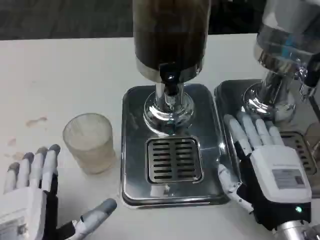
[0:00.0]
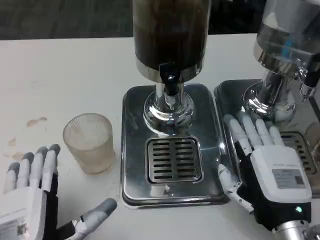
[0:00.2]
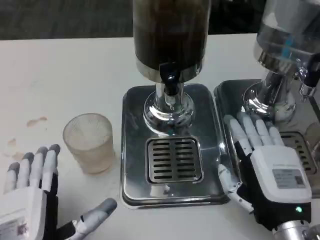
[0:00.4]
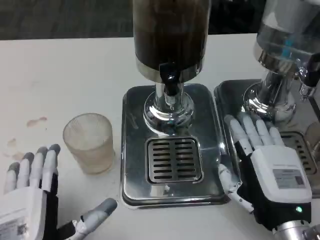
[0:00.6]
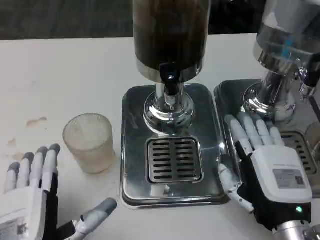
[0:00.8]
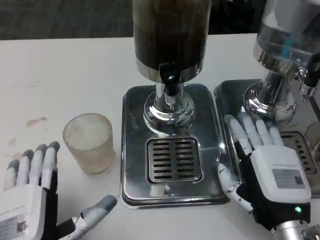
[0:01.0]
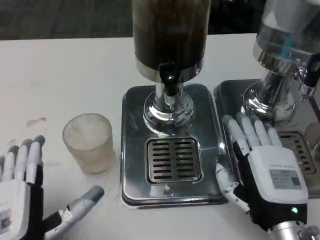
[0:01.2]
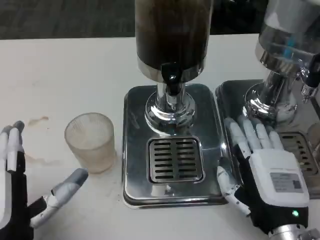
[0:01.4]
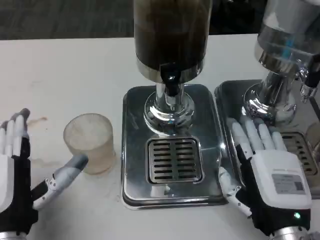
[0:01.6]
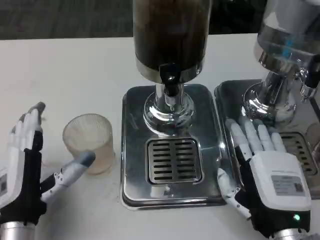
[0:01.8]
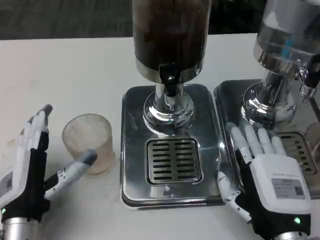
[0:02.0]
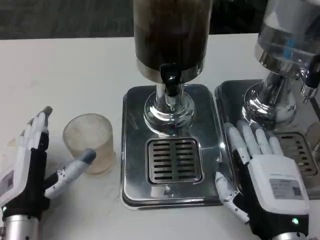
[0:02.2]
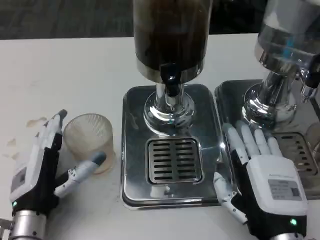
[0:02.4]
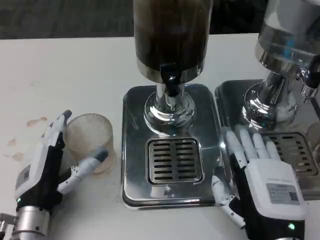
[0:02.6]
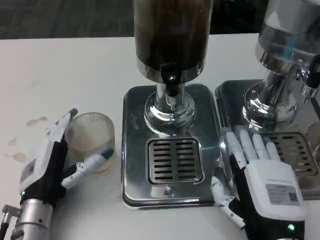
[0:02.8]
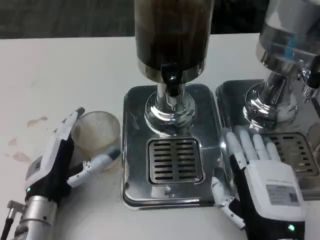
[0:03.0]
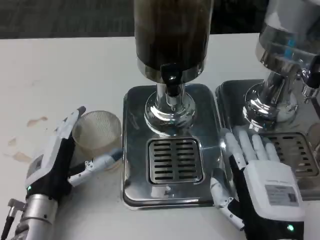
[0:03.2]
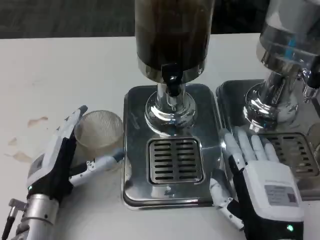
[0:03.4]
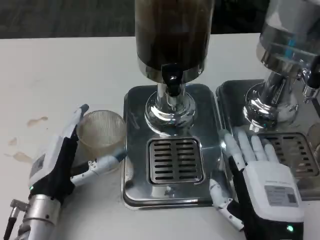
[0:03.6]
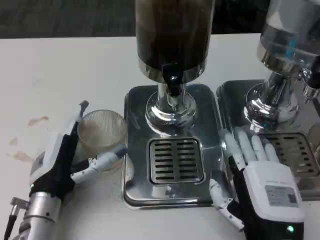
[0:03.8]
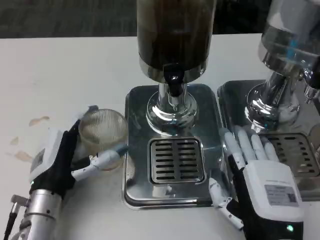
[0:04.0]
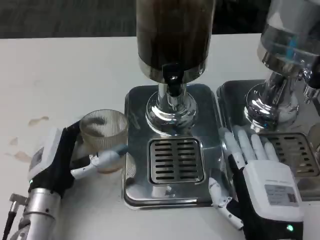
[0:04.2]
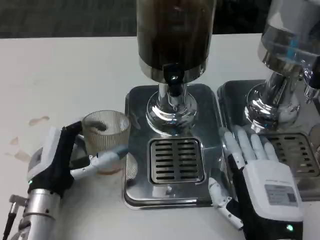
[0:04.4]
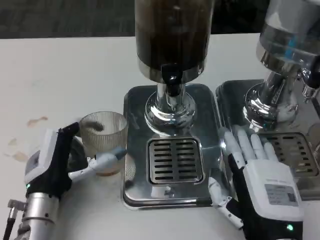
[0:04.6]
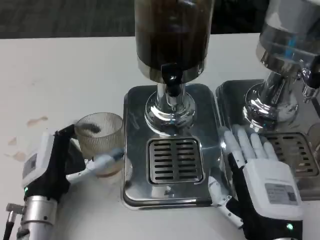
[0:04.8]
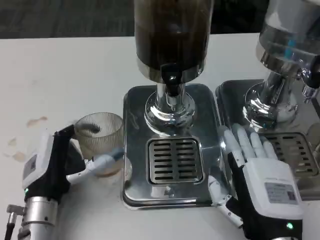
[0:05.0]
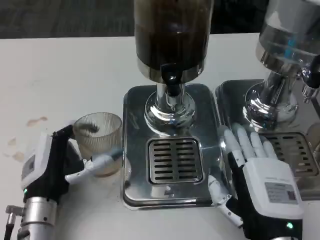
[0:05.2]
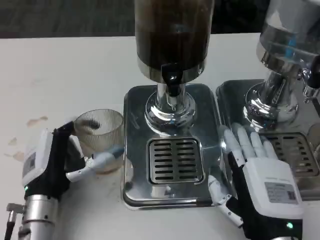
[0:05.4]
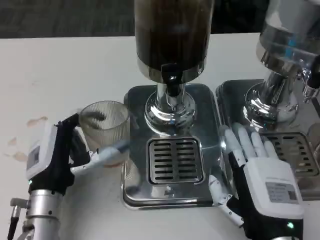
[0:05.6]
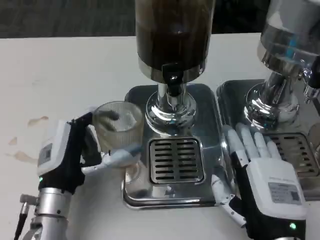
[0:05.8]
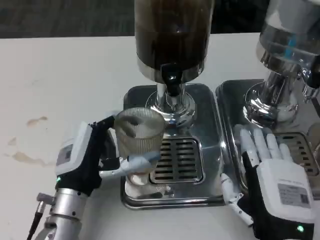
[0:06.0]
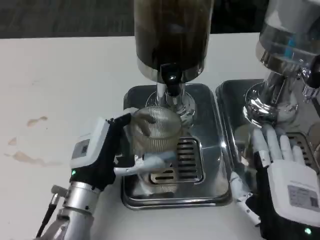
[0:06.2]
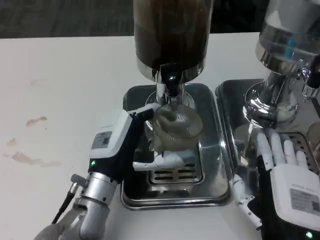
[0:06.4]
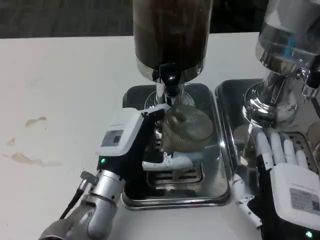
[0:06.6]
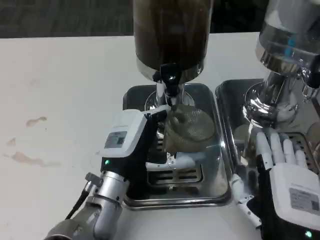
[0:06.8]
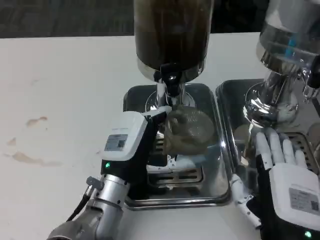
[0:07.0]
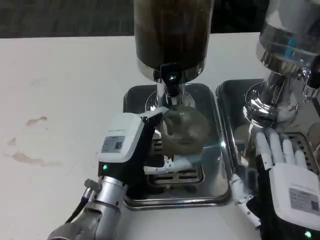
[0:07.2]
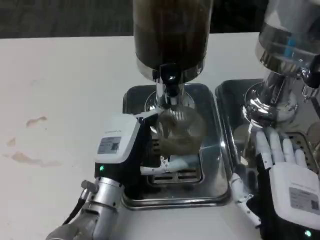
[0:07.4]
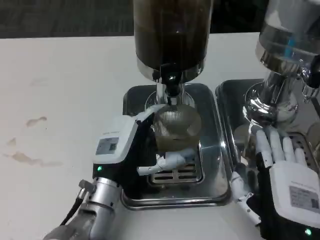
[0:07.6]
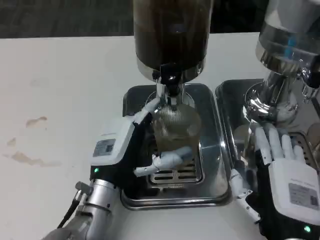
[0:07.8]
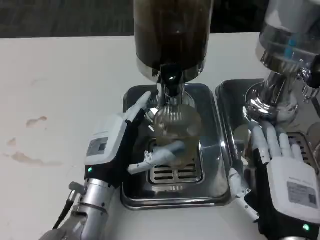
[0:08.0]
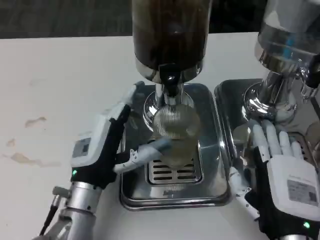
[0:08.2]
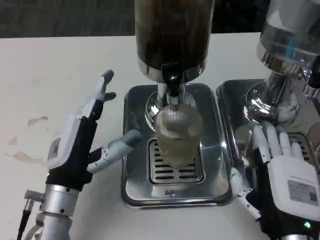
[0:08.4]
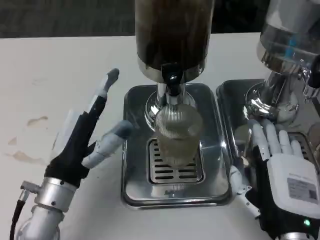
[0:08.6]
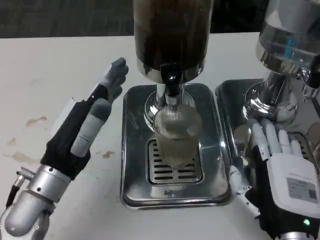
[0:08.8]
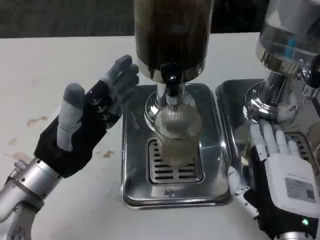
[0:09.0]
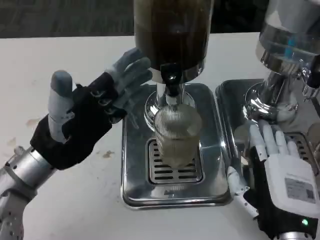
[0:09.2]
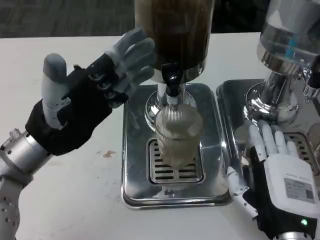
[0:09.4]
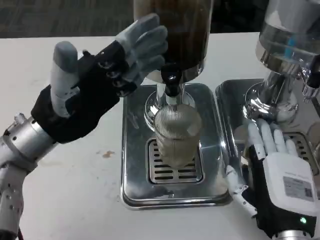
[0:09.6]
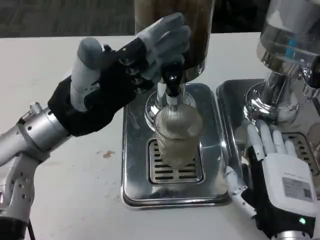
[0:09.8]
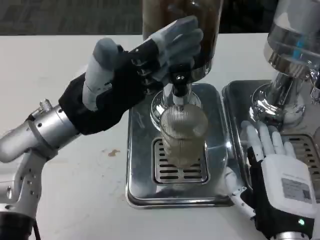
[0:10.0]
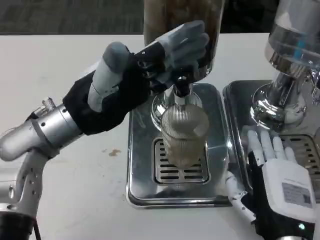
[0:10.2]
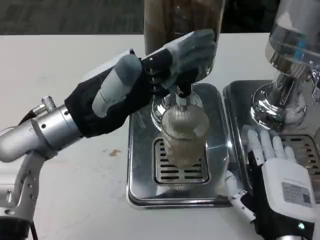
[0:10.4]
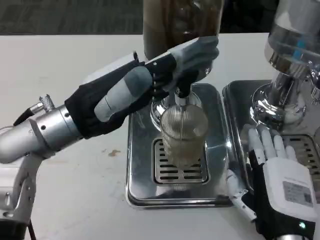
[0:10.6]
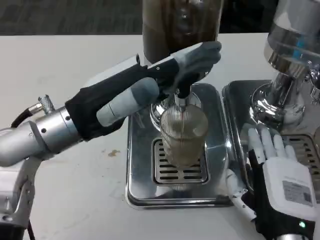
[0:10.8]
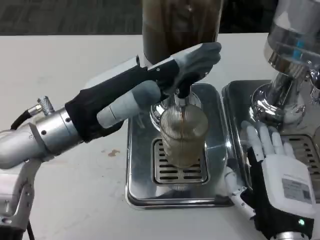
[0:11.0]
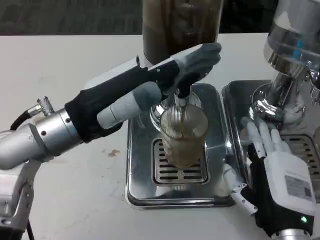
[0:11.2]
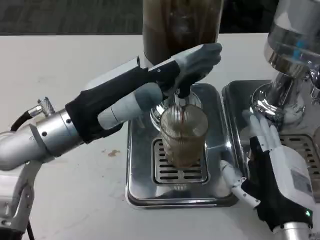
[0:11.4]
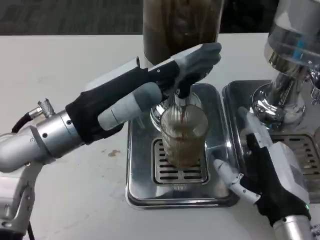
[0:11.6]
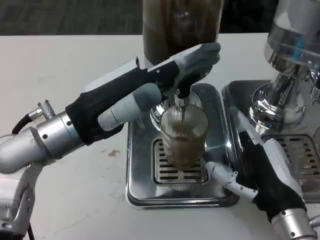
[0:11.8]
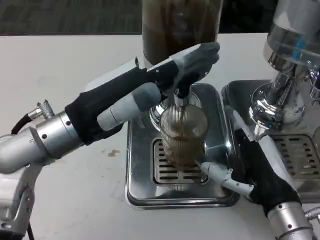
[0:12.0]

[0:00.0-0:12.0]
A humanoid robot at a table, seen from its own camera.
Task of the whole recording: Grasp the cup under the faucet to collect the drink, then remove the cup.
0:00.0 to 0:01.6: The left hand travels forward by about 5 cm.
0:01.6 to 0:03.0: The left hand is displaced forward by about 5 cm.
0:03.0 to 0:04.4: The hands make only small movements.
0:07.6 to 0:09.0: The left hand moves to the left and upward, about 10 cm.
0:09.0 to 0:10.4: The left hand travels upward by roughly 10 cm.
0:10.4 to 0:12.0: The right hand moves roughly 5 cm.

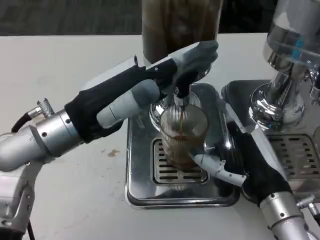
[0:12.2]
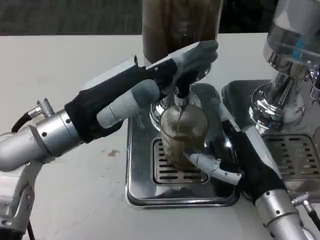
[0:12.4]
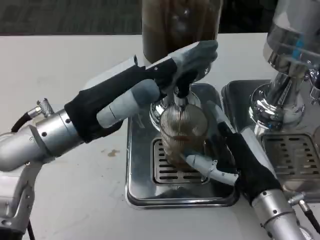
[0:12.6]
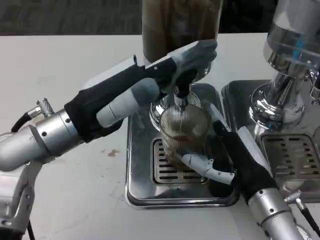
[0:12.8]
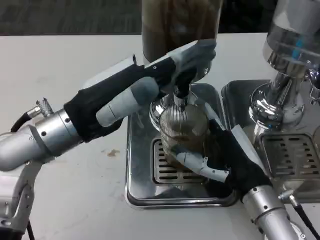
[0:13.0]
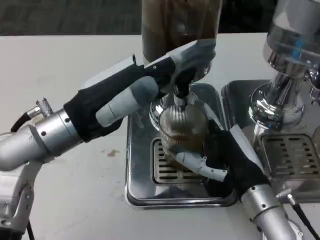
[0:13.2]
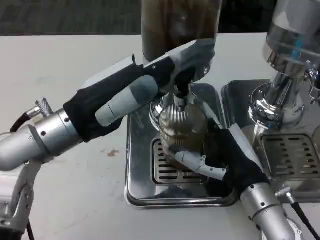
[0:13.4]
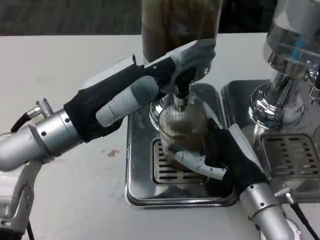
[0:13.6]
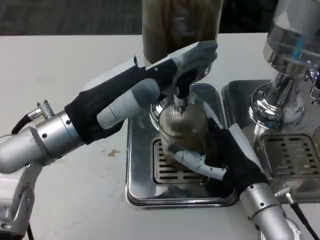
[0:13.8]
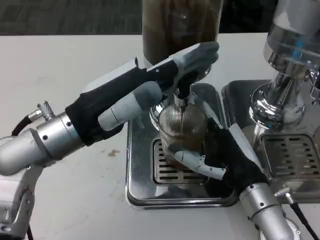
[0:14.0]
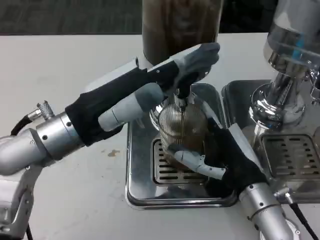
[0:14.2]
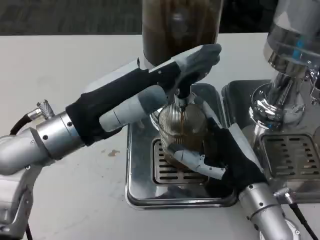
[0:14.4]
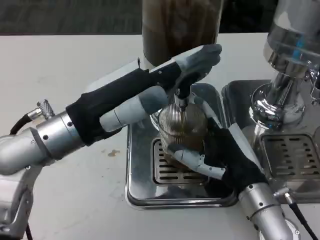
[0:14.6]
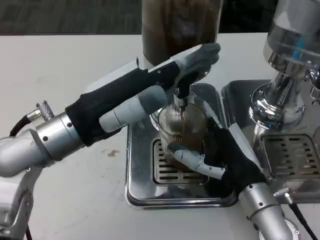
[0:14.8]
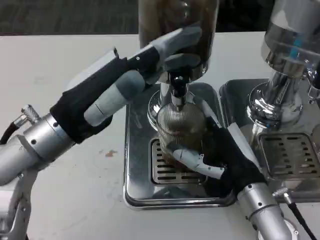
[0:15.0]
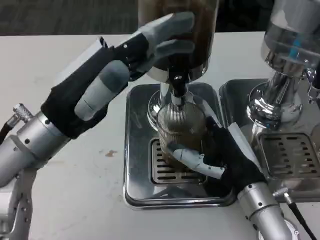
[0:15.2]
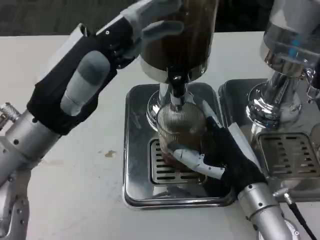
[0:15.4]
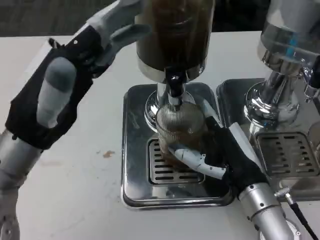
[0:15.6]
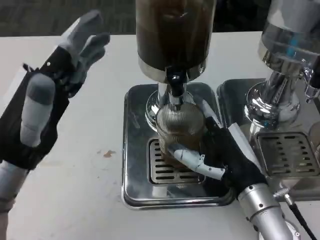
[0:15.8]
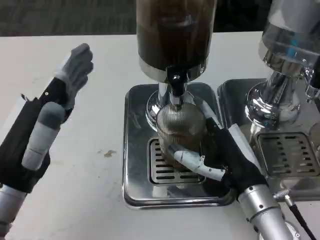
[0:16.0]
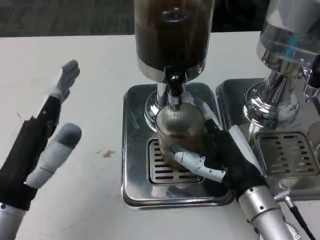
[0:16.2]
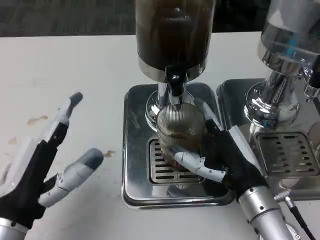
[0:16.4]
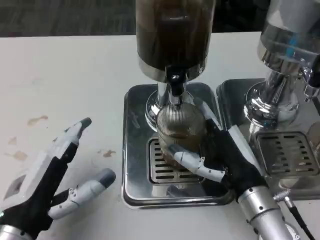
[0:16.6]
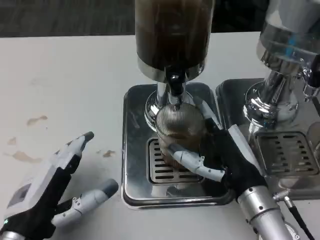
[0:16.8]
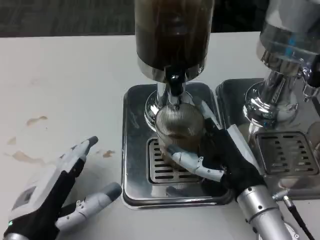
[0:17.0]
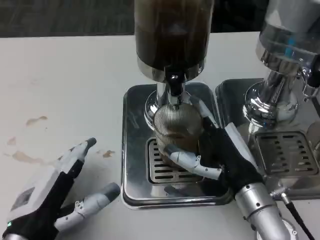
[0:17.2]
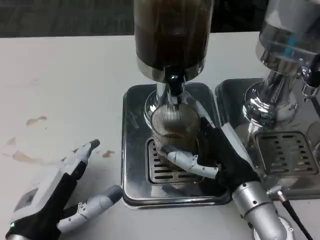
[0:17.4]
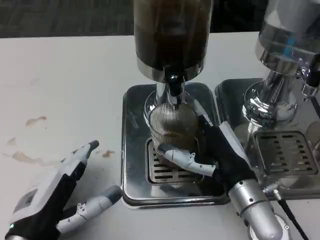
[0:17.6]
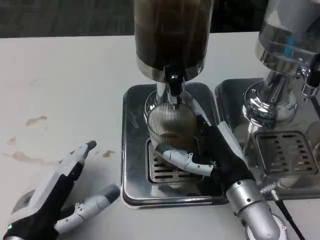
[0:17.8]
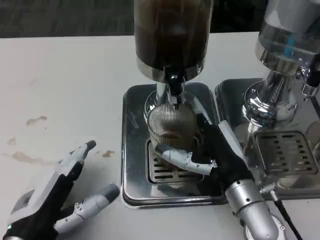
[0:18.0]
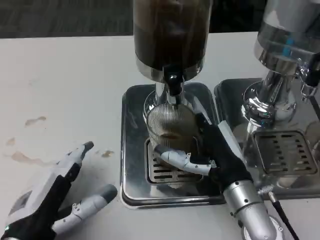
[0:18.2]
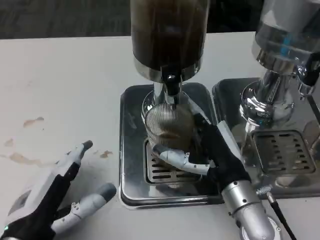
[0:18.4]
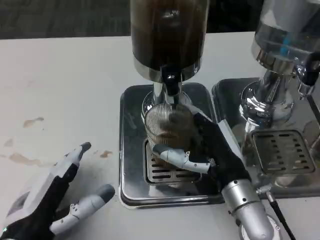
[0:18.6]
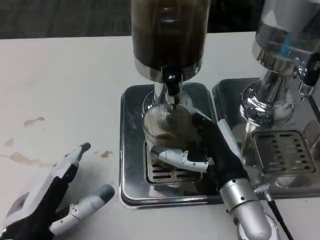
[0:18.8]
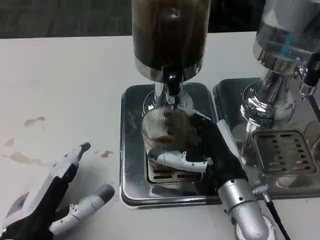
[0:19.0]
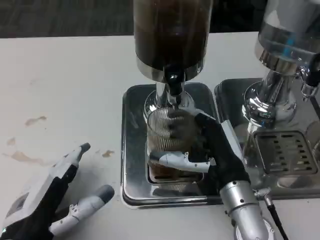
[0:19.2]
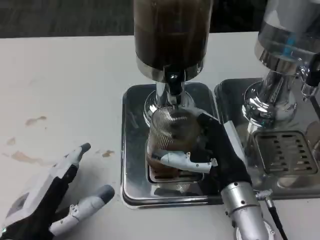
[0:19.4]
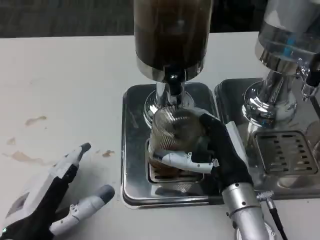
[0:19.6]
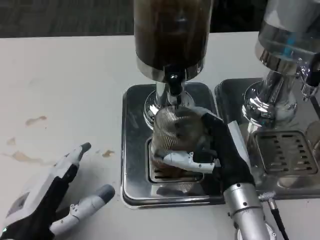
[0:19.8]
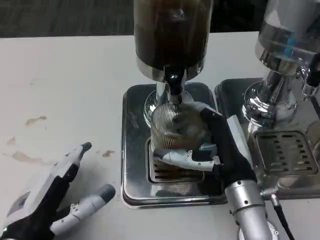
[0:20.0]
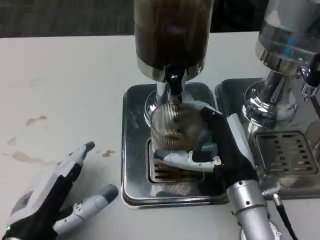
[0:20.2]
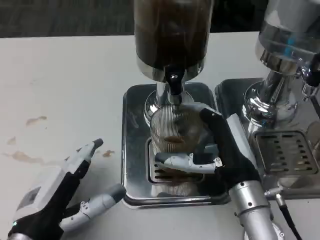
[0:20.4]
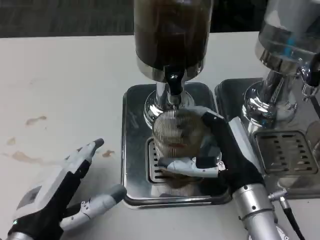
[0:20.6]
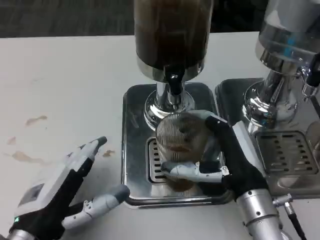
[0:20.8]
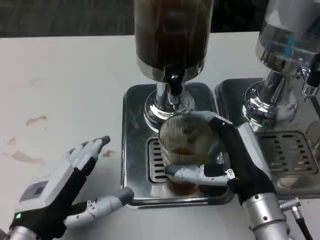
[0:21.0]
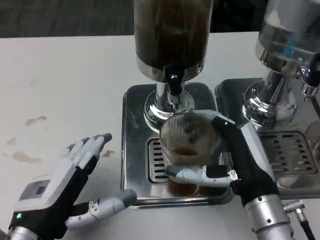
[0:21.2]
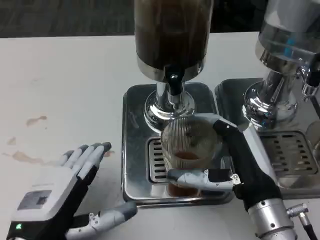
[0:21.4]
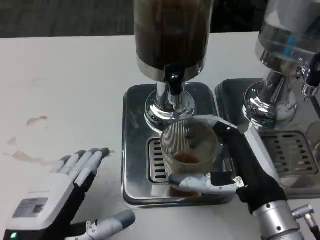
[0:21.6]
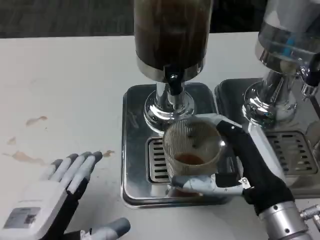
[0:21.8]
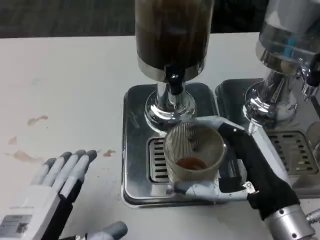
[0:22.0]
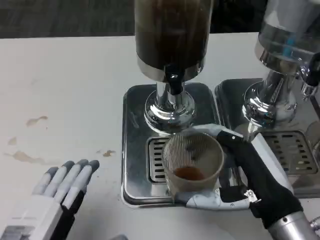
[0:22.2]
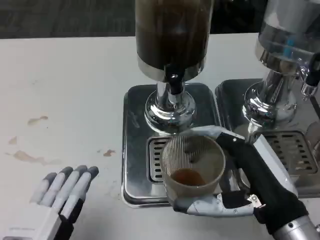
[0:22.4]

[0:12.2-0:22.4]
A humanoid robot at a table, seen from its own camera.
Task of the whole recording: Grasp the cup under the faucet to collect the drink, then remove the cup.
0:12.2 to 0:13.6: The hands stay close to where they were, moving slightly.
0:15.2 to 0:16.6: The left hand moves backward and downward, approximately 15 cm.
0:18.0 to 0:19.4: The hands stay close to where they were, moving slightly.
0:21.0 to 0:22.4: The right hand travels backward by about 5 cm, while the left hand goes about 10 cm backward.
